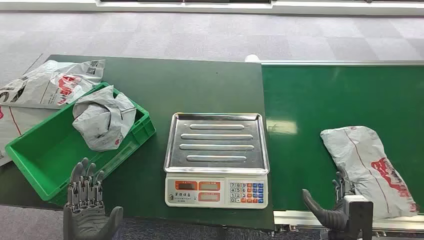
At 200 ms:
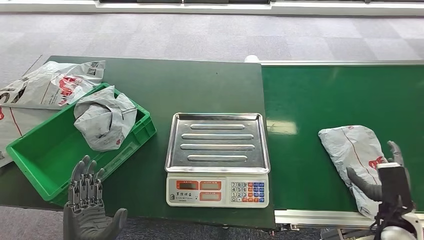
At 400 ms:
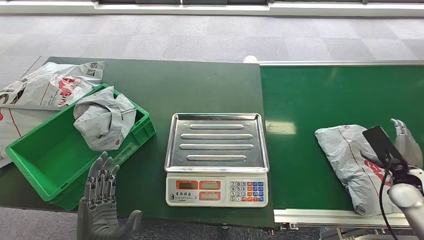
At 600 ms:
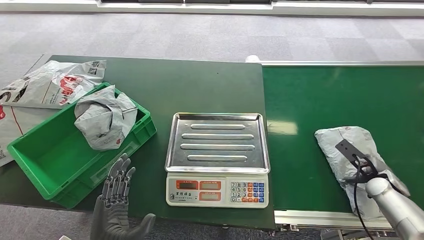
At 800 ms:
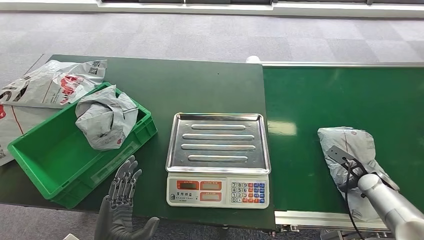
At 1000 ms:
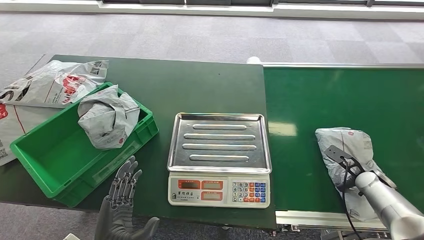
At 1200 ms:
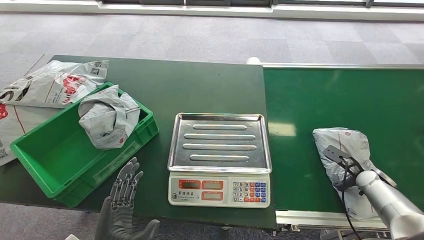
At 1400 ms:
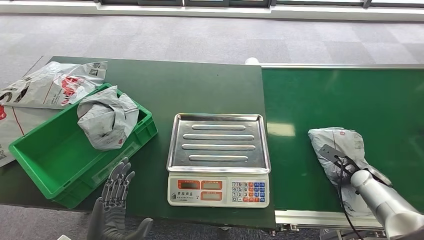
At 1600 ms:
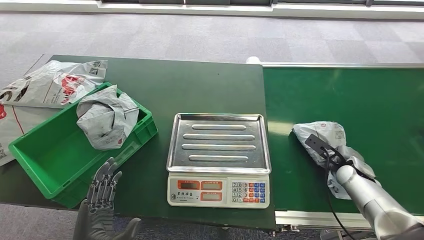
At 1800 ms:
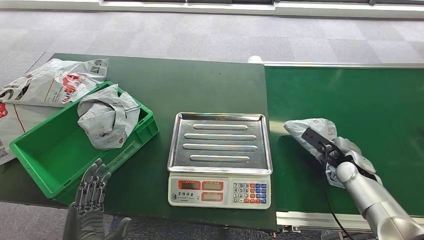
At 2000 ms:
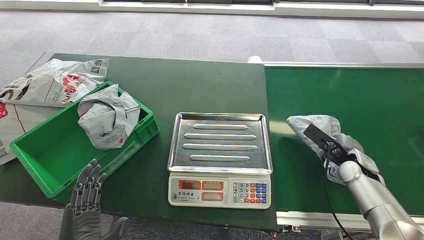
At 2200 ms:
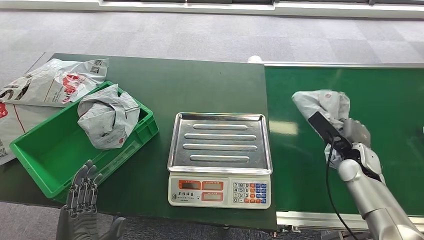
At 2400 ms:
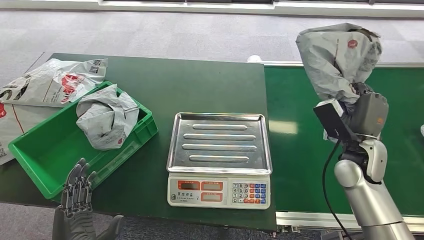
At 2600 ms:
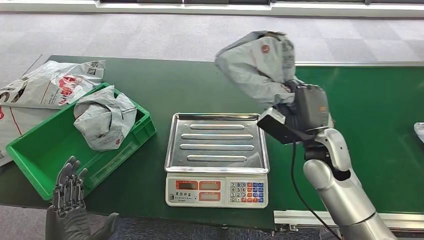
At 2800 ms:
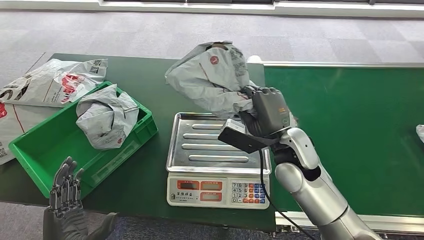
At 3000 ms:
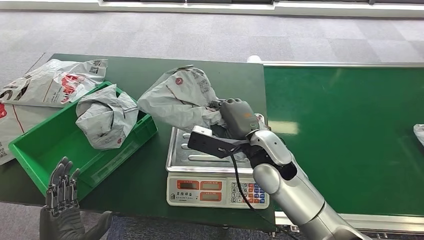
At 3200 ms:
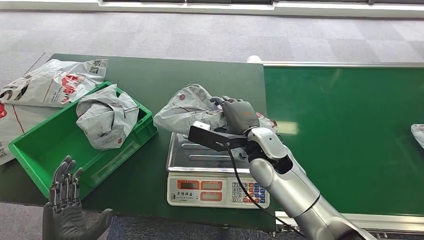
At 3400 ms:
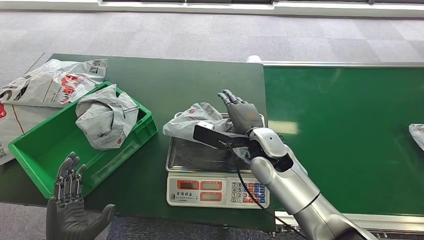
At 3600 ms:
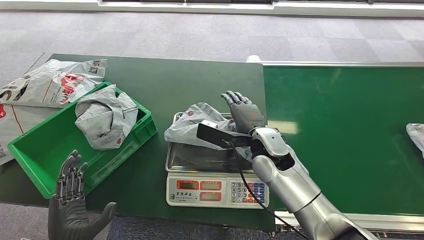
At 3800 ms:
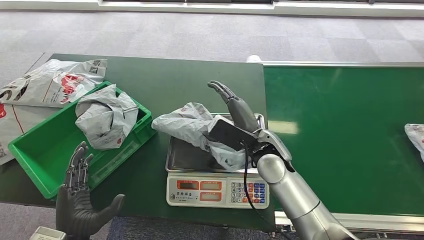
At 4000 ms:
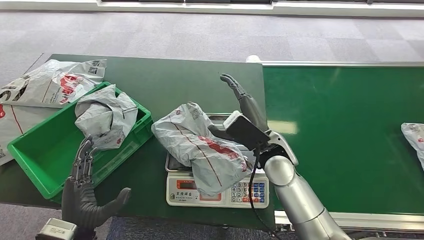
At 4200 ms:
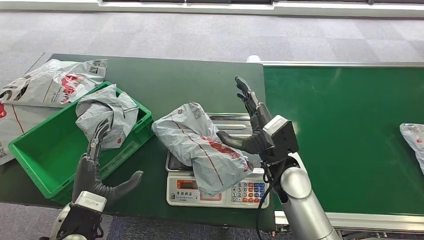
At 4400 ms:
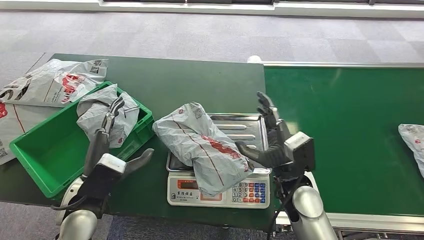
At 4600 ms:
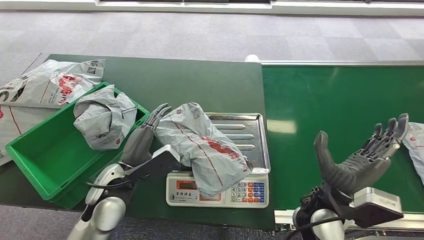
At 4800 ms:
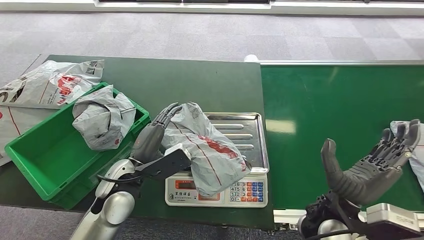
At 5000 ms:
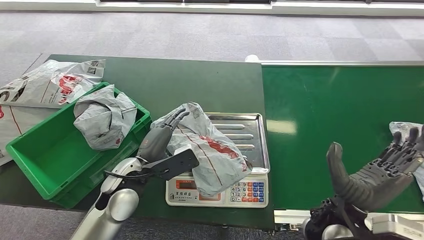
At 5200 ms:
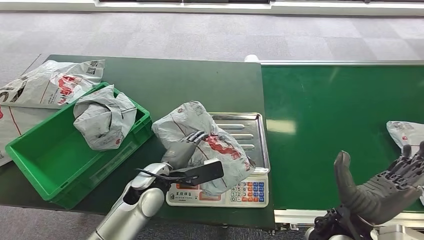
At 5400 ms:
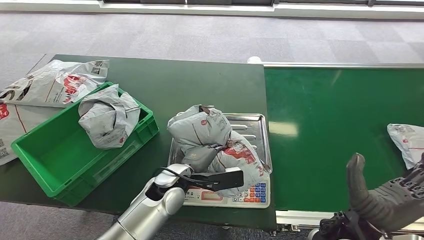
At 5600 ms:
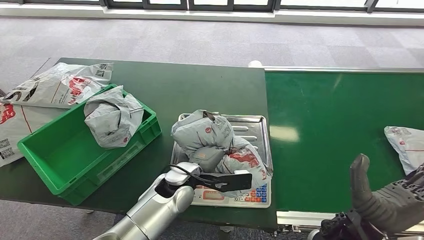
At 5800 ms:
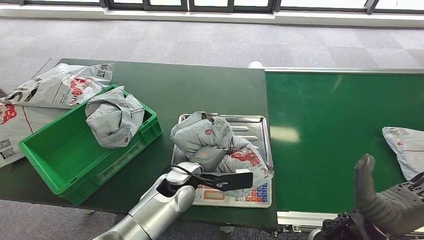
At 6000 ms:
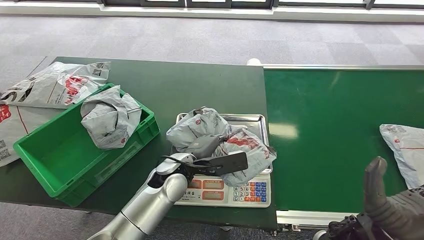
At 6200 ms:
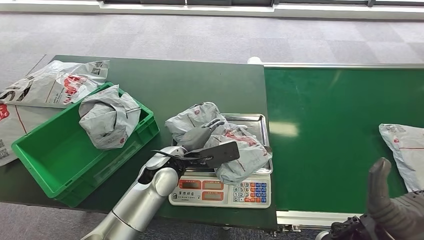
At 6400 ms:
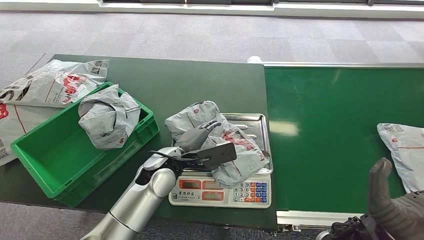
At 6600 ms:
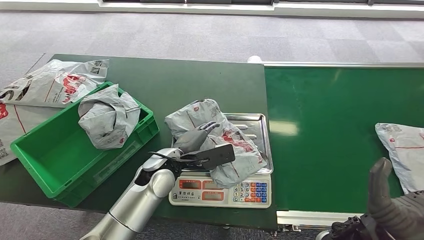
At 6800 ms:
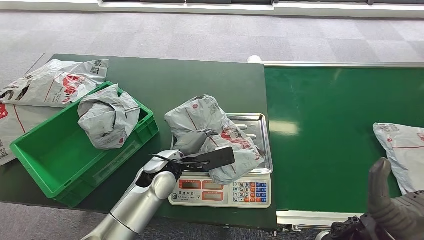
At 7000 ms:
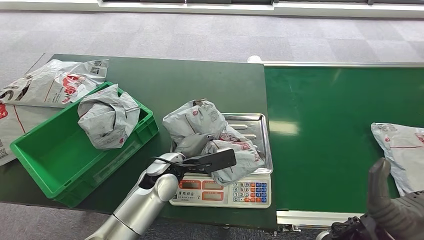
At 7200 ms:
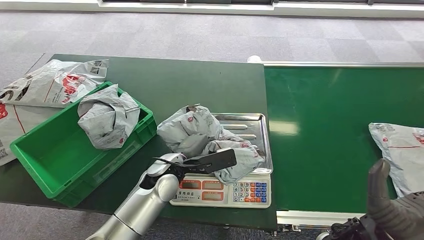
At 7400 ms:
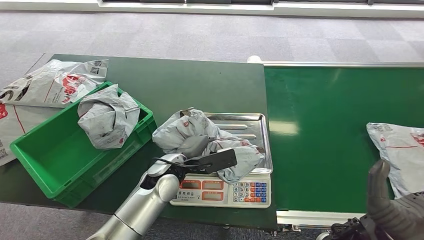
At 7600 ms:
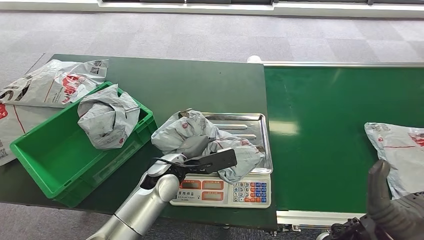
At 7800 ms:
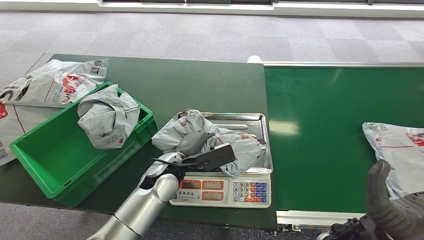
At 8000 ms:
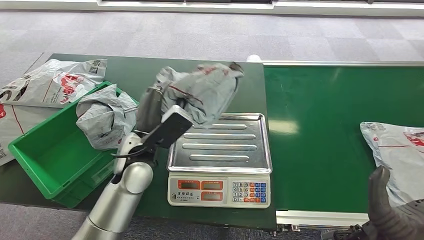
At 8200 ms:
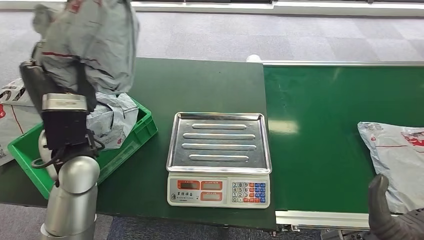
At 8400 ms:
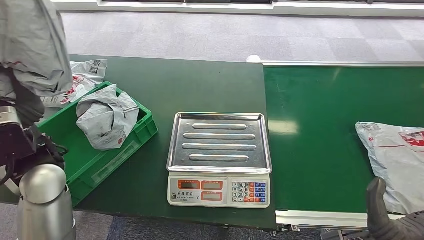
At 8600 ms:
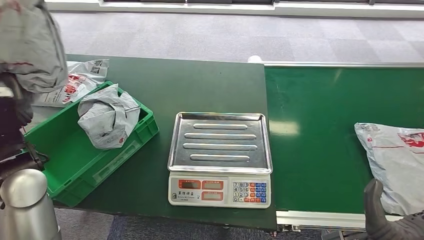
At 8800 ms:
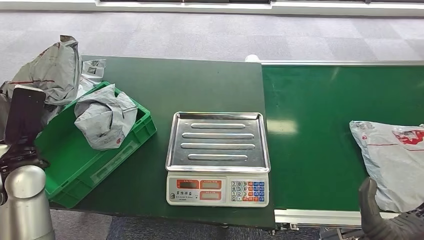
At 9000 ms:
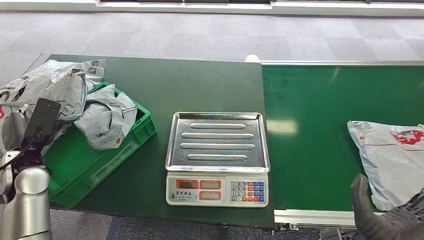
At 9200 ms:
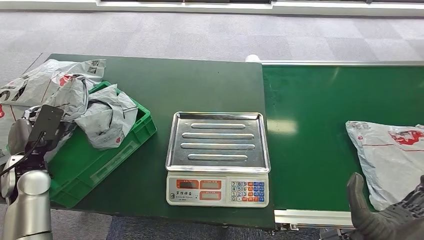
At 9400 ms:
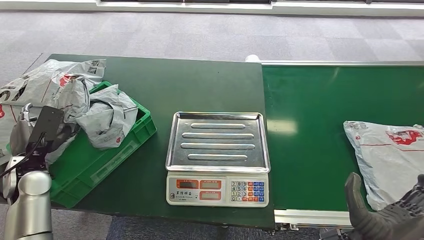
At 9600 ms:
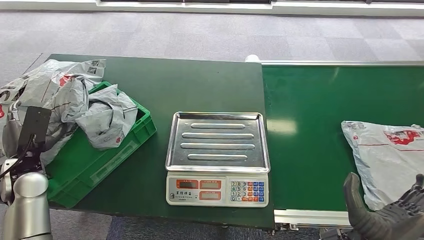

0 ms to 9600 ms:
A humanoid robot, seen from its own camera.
Step, 0 ms to 2400 ms: Pick up the package from the conveyor belt.
Step, 2600 ms to 3400 ms: Place the package onto the inbound machine.
Step, 7200 ms to 8400 ms: Pick up the package from the inbound machine.
Step, 8600 ms to 9600 ms: Place the package into the parcel locker.
